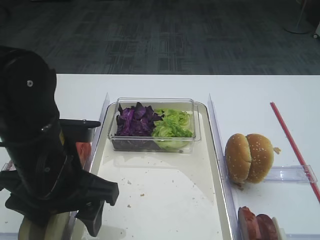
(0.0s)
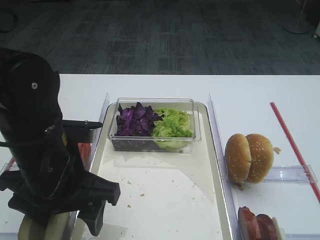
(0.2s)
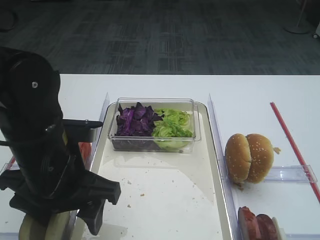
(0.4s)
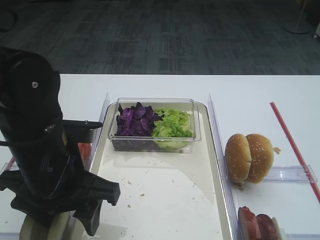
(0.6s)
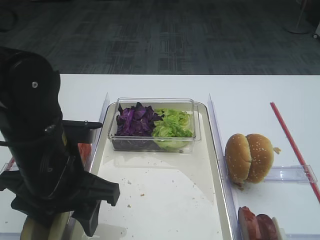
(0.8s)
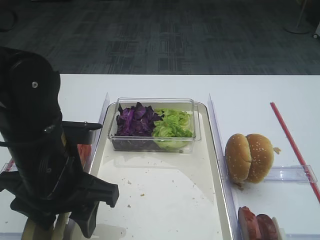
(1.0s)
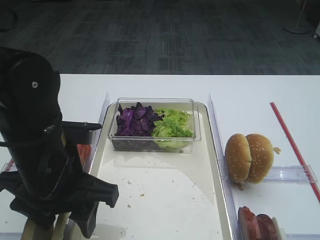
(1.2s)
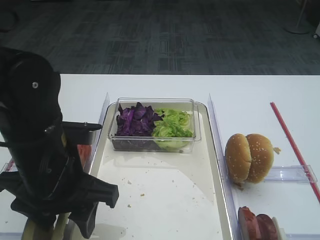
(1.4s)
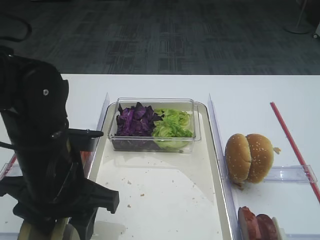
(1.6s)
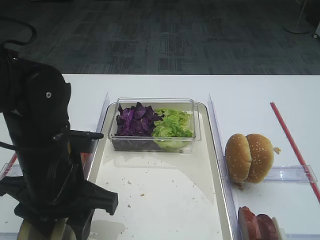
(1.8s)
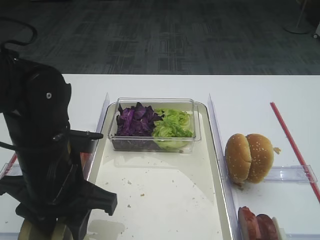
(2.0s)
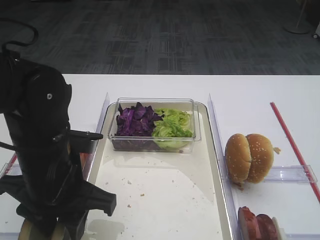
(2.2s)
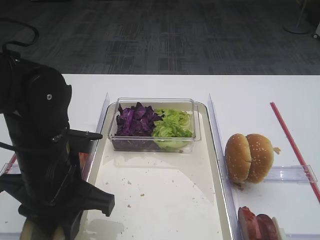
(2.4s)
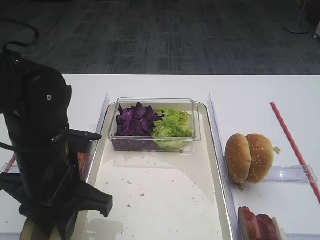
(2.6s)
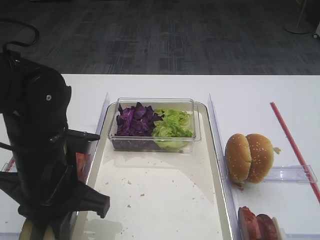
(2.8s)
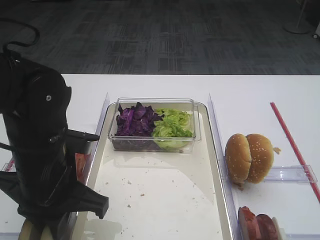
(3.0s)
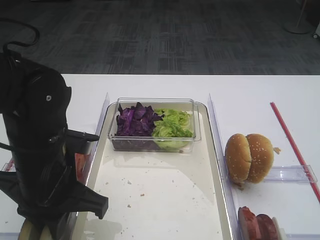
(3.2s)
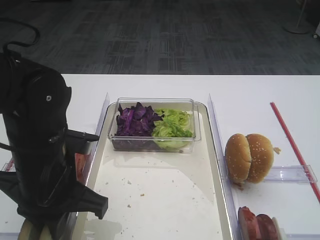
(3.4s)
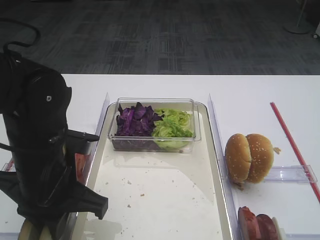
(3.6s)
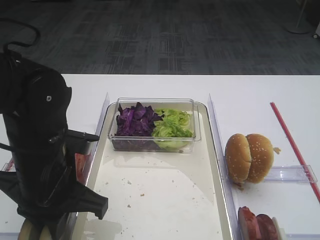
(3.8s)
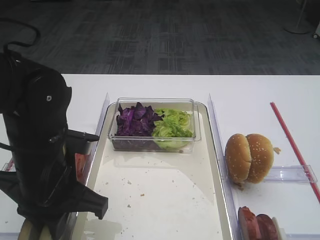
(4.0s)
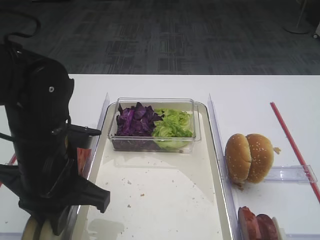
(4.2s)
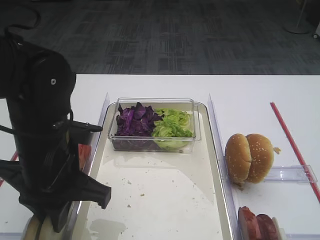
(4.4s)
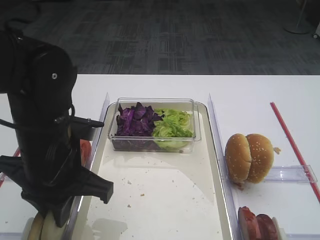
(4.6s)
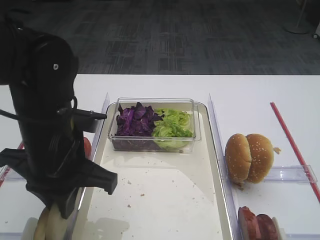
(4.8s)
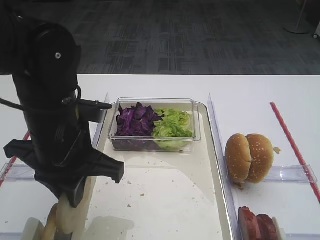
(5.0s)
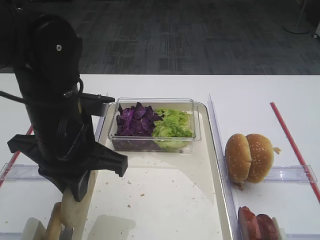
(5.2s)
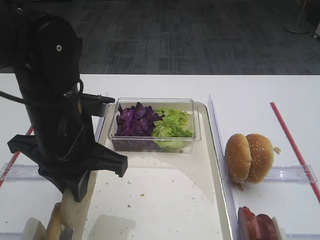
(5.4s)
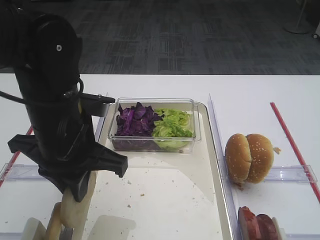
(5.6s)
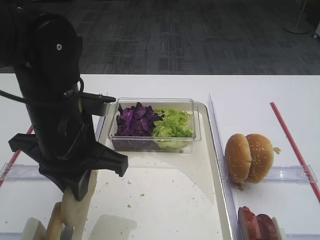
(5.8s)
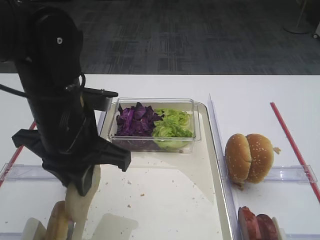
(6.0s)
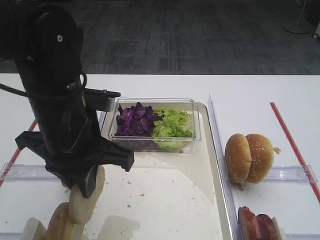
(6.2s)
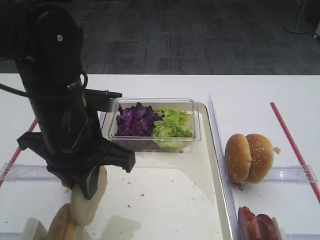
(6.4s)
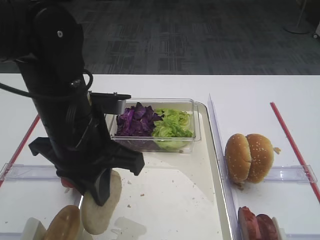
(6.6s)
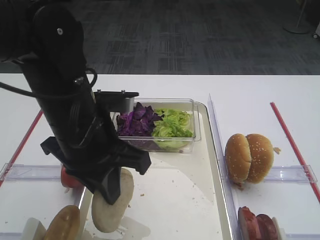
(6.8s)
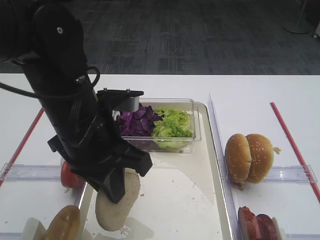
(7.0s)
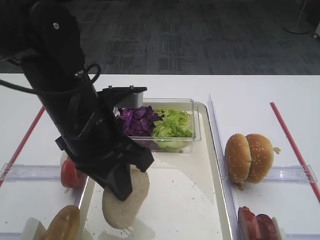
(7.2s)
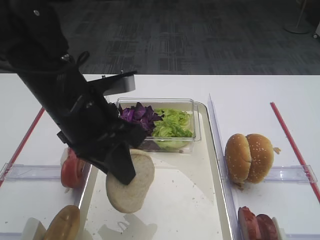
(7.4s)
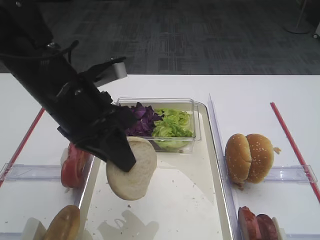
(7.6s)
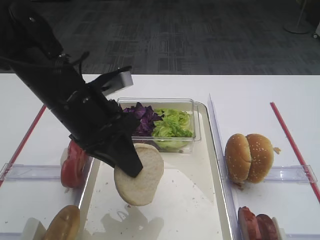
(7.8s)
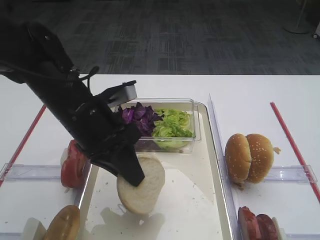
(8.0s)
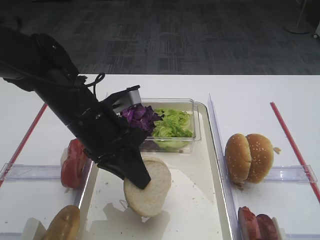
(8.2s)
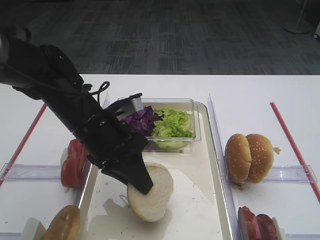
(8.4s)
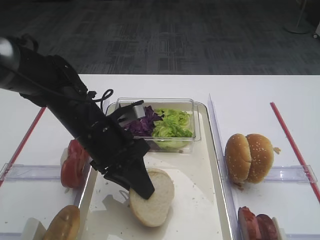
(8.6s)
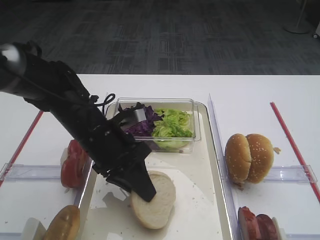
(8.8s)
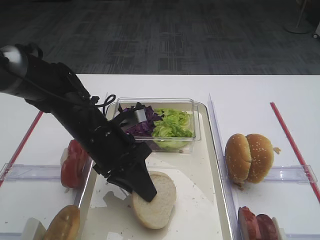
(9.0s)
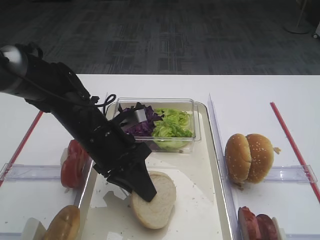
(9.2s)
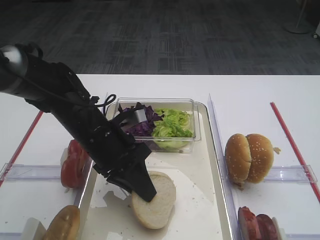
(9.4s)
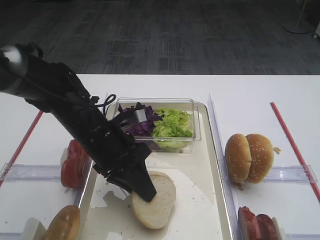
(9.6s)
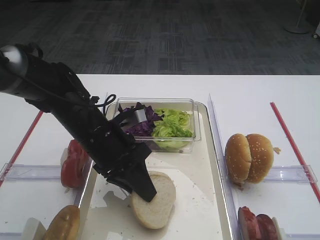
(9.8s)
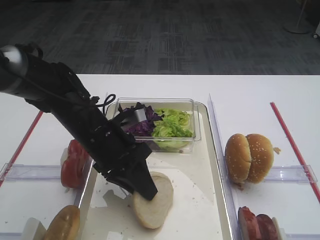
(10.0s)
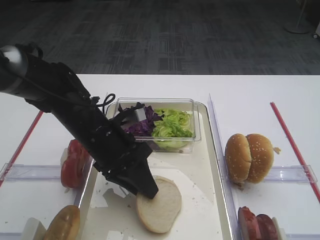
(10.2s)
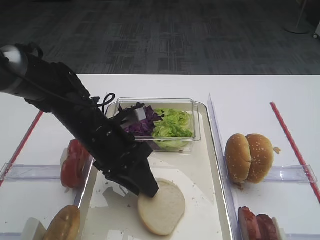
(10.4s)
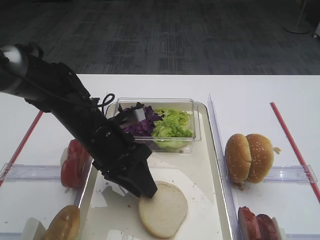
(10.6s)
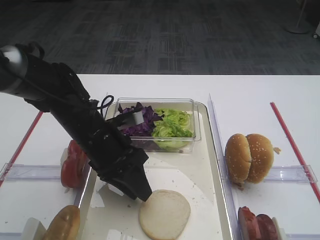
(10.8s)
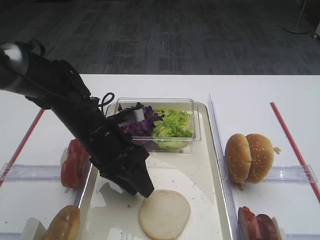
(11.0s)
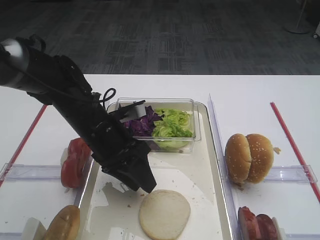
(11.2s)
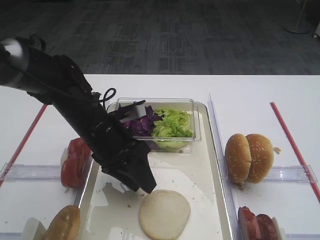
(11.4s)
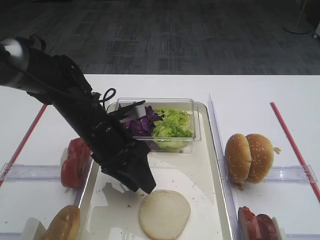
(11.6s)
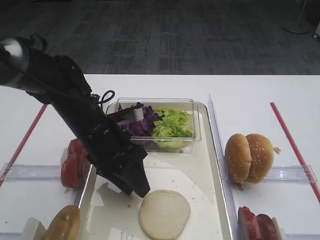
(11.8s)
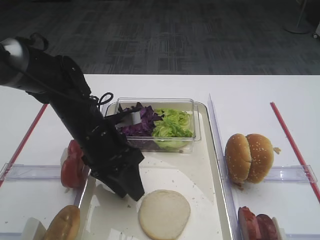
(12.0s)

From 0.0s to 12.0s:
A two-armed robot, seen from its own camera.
Step, from 0.0s to 4.8s: Pick up the bread slice with the left gripper.
Step, from 5.0s to 11.4s: Place the bread slice on the tray with the left gripper.
From 0.0s to 1.6s: The grippers make only small movements.
From 1.6s to 3.0s: The left gripper closes its fingers.
From 3.0s to 4.4s: The grippers stay close to where they were, moving slightly.
From 4.4s to 6.0s: There are only small adjustments of the grippers.
From 7.6s to 9.0s: The left gripper moves downward, roughly 10 cm.
From 9.0s to 10.4s: Both grippers stay put.
From 10.4s to 12.0s: The grippers move only a little.

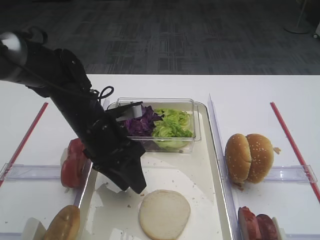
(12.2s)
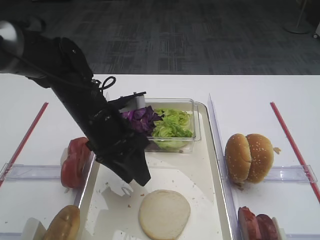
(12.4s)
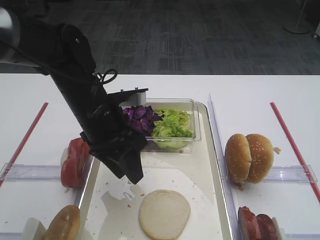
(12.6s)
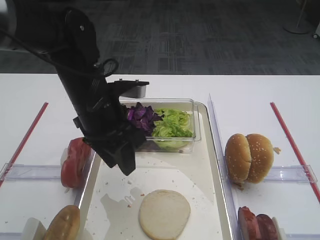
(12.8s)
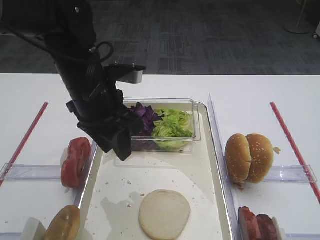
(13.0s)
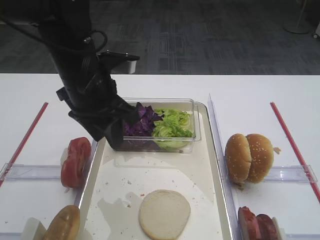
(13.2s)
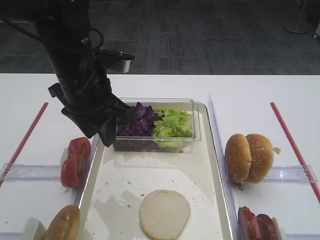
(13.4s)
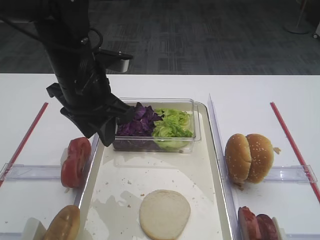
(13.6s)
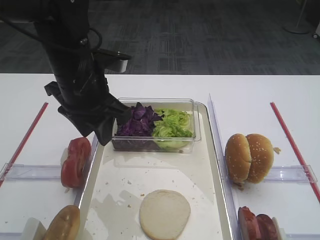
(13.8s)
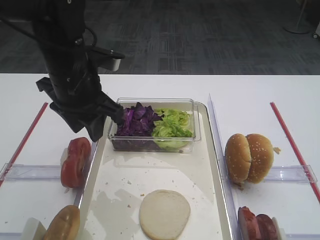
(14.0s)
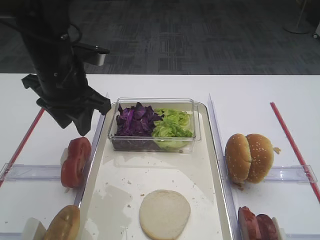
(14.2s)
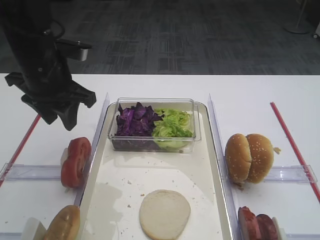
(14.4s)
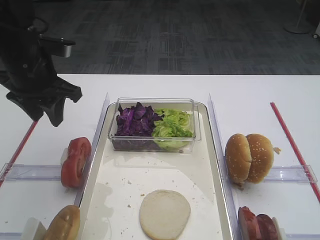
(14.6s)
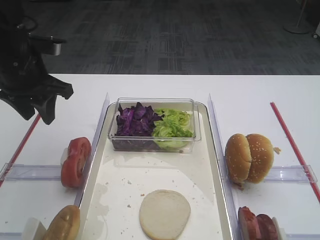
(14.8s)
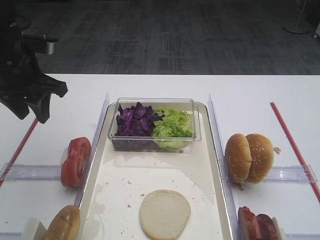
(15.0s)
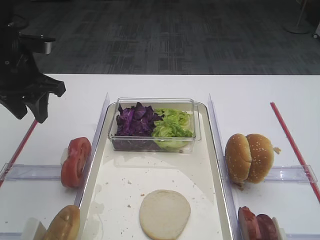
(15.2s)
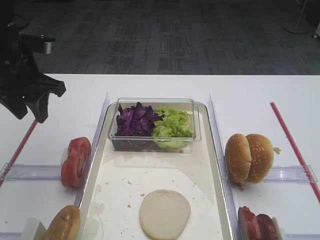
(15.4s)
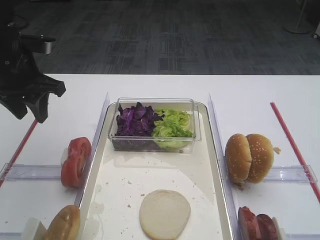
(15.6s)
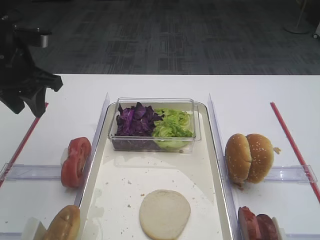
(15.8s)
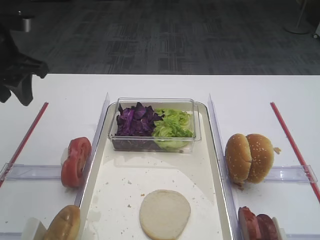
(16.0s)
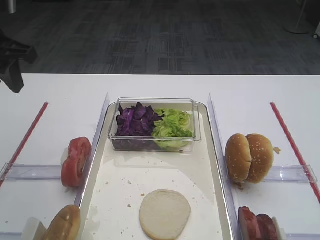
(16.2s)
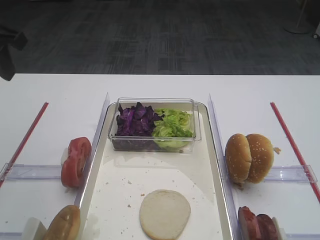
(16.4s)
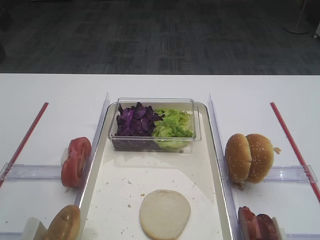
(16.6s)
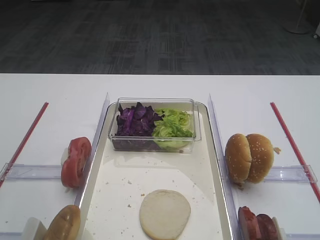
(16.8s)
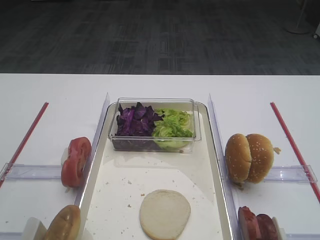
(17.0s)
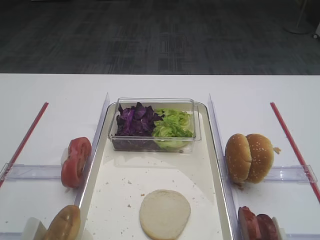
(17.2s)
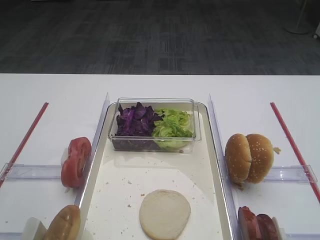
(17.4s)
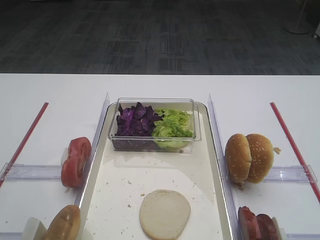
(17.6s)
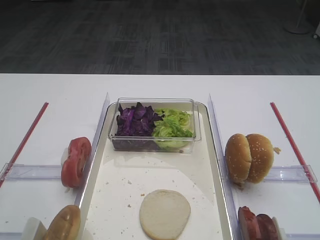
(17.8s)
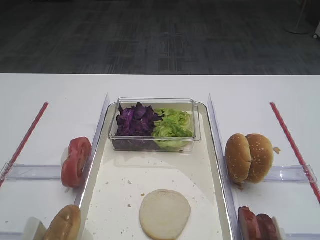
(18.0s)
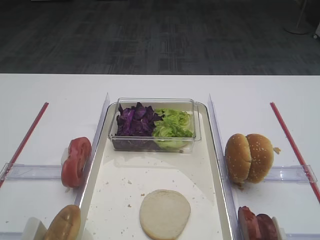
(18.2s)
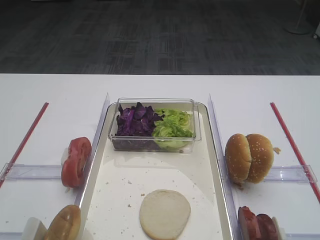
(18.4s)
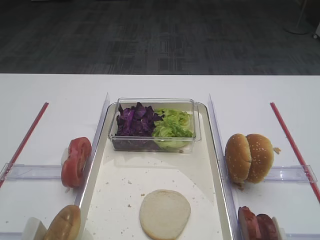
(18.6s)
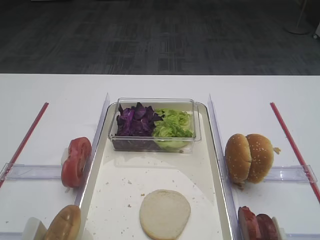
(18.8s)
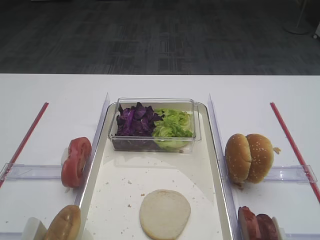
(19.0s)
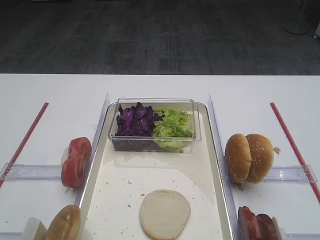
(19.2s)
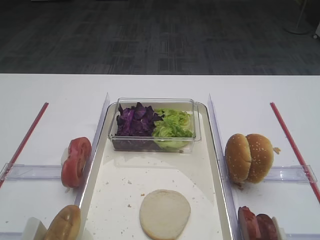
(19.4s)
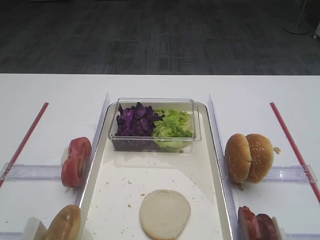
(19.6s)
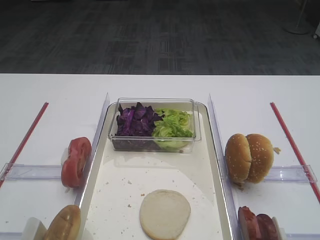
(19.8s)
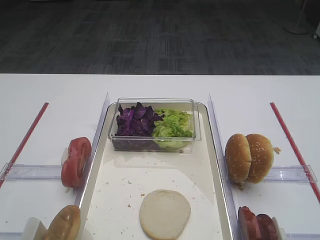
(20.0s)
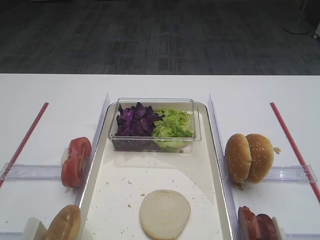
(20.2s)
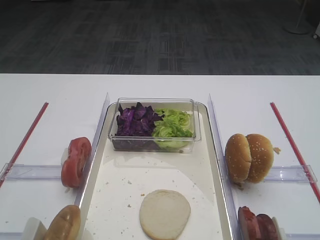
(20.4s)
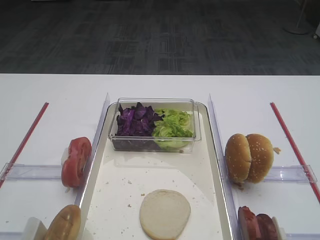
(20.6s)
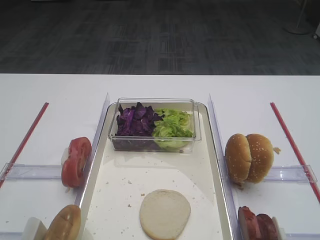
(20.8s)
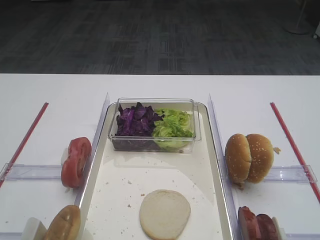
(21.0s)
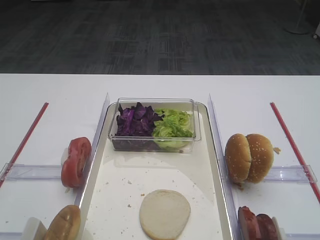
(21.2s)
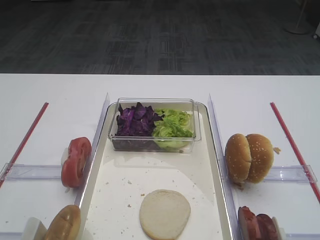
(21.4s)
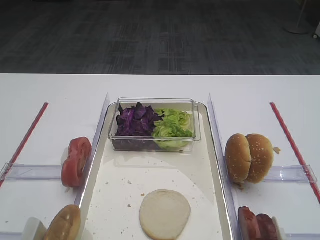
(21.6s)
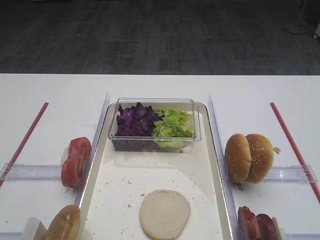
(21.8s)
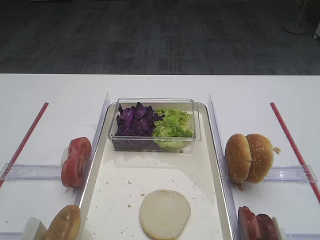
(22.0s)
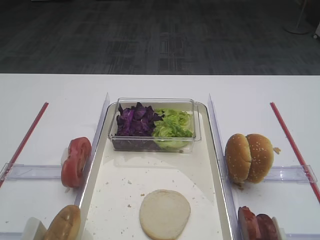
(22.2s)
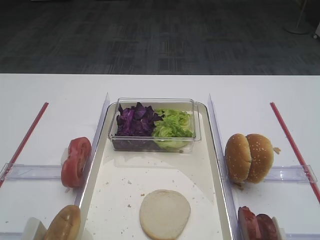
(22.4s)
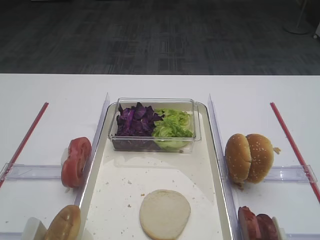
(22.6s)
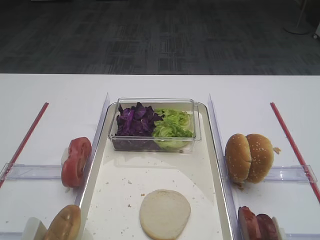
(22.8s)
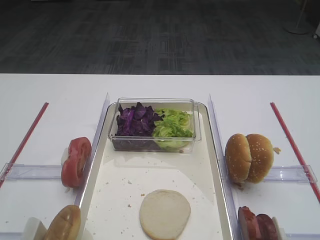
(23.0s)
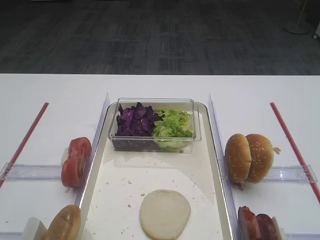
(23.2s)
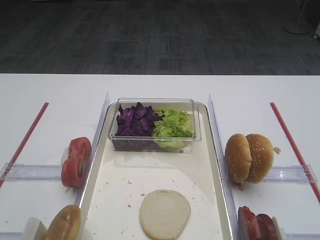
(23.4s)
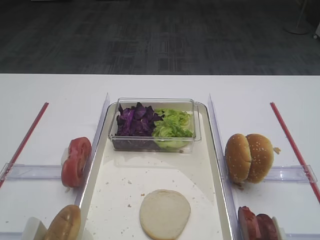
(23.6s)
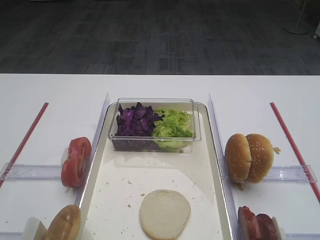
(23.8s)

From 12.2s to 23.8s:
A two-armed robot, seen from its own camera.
From 12.2s to 13.6s: The left gripper heads upward, covering some 10 cm.
From 13.6s to 15.0s: The left gripper is displaced to the left by roughly 10 cm.
From 15.0s to 16.6s: The left gripper travels upward and backward by about 15 cm.
From 19.4s to 22.4s: Neither gripper changes place.
